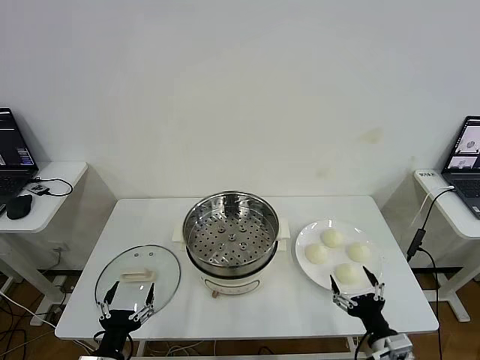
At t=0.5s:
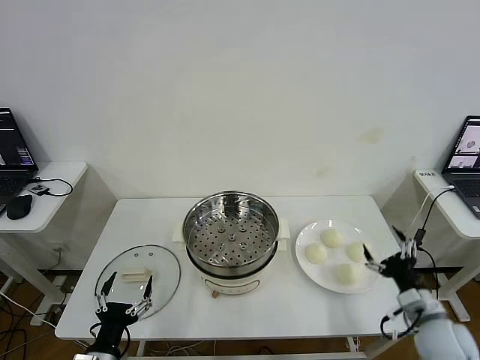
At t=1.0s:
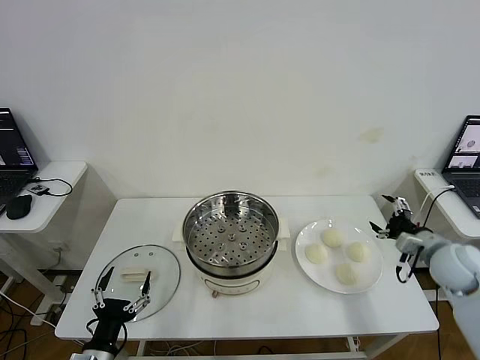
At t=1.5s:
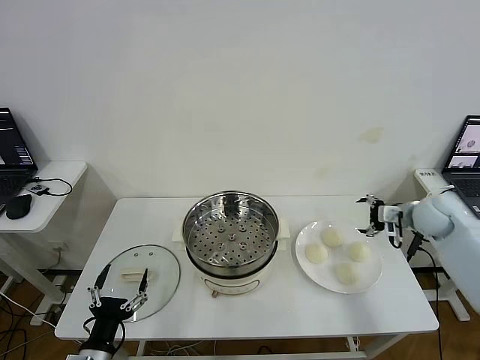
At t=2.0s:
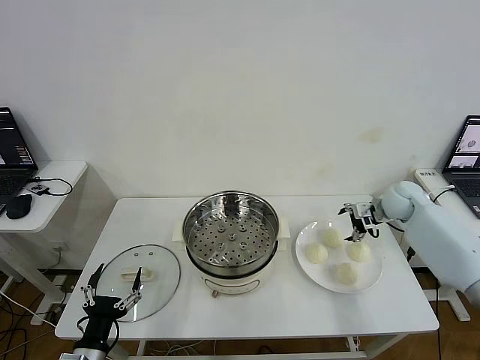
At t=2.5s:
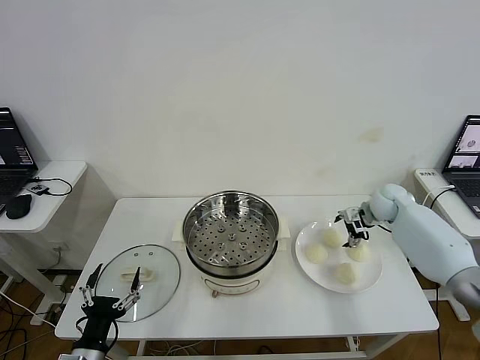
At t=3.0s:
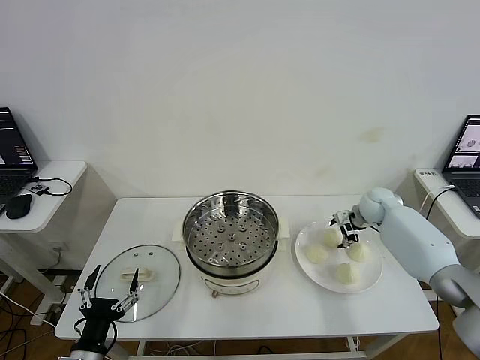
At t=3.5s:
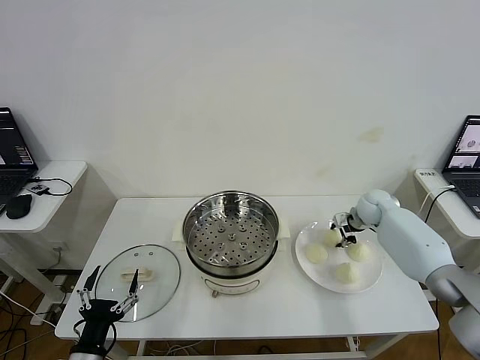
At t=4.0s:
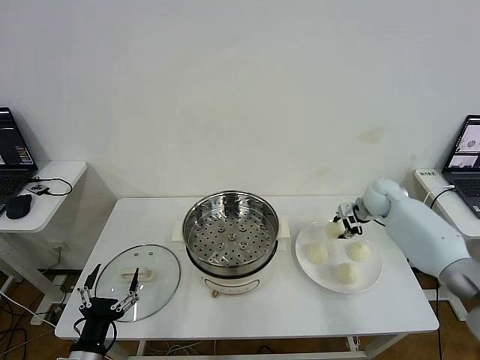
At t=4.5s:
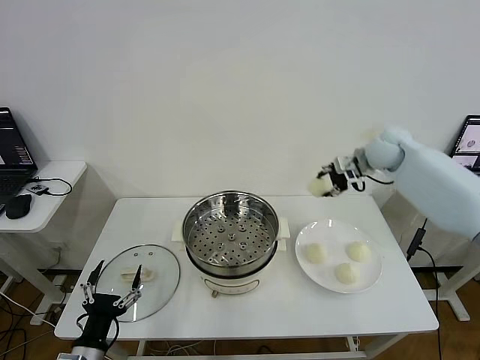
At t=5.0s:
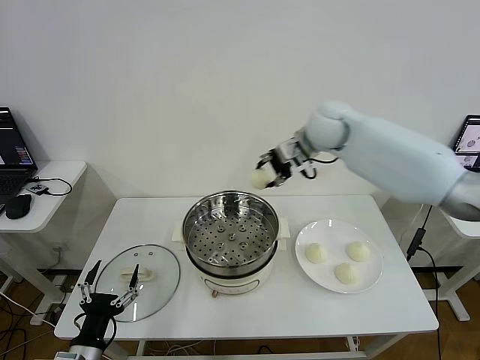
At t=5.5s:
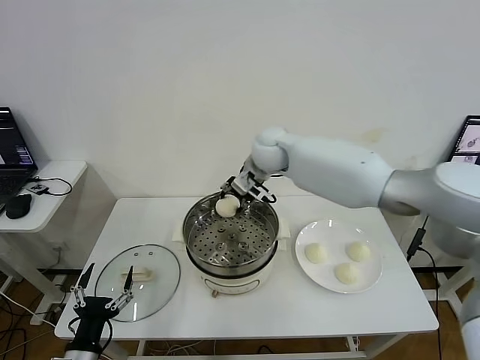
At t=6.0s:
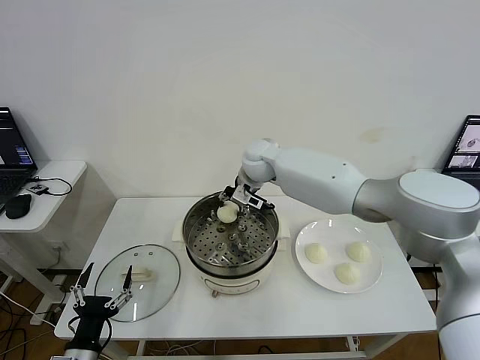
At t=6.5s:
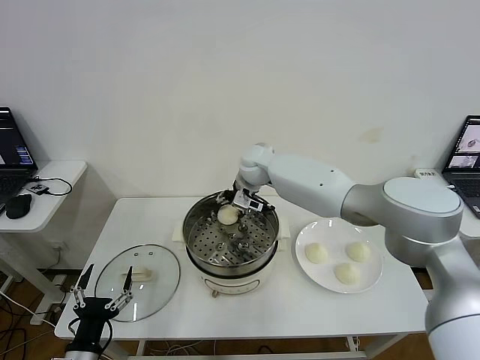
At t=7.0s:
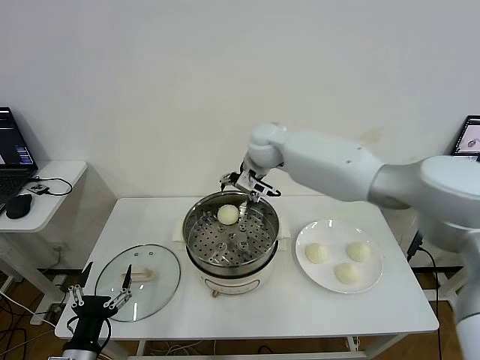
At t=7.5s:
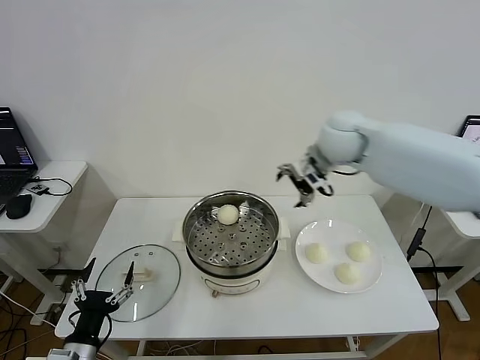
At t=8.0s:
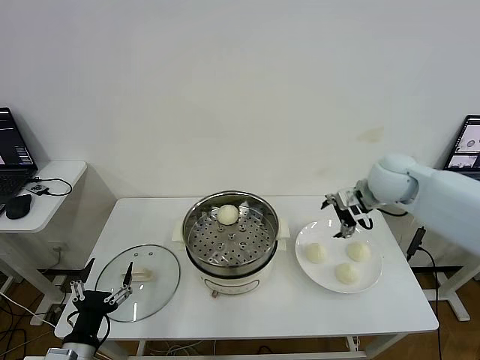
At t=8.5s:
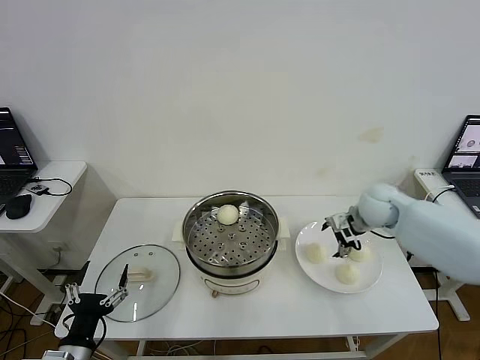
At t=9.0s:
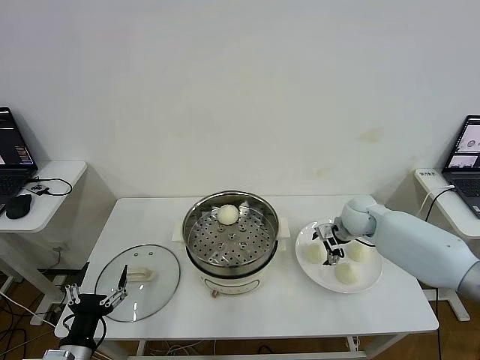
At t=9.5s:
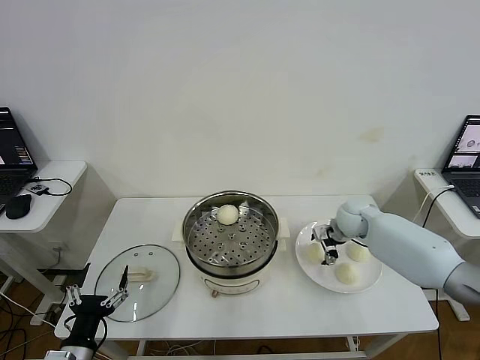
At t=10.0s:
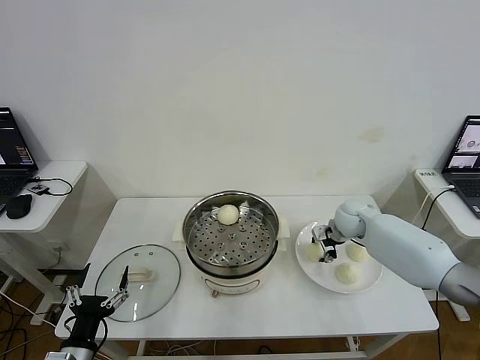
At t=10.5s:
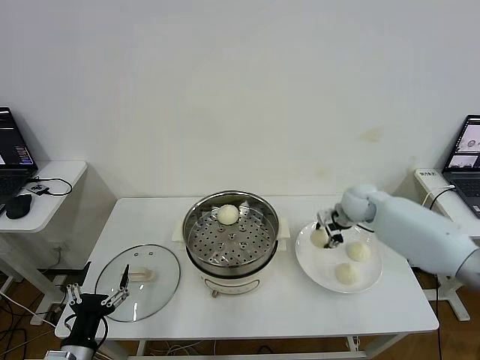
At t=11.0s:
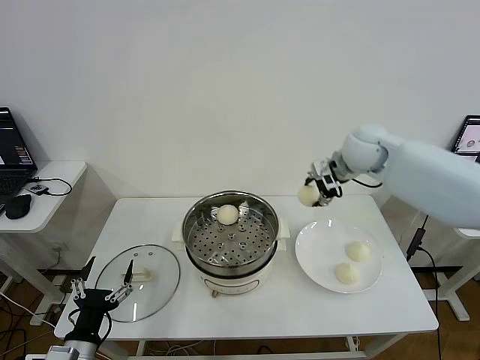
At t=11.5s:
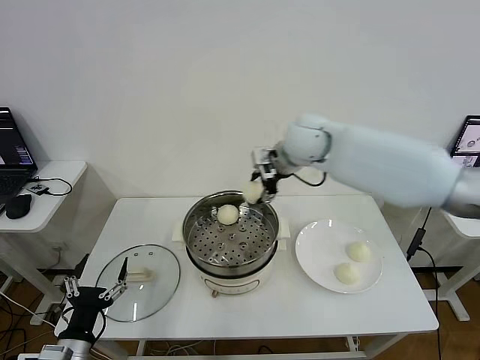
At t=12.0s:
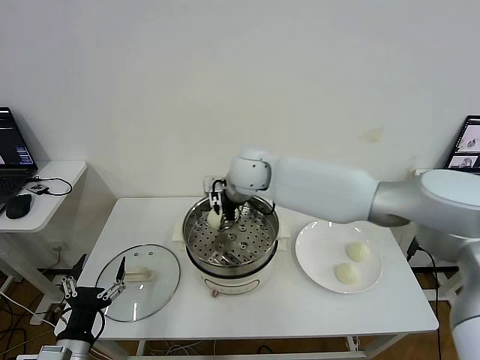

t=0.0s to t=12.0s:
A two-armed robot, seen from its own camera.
Step, t=0.0s to t=3.5s: Grasp the baozi in the plate with right gripper.
Step, t=4.0s to t=6.5s: Place the baozi on the steamer with right gripper.
Step, t=7.0s to t=10.0s: Grasp the baozi in the plate with right gripper.
t=2.0s to t=4.0s: The right gripper closes its fingers.
t=4.0s to t=6.0s: The right gripper is displaced to the left by roughly 35 cm.
t=6.0s to t=8.0s: The right gripper heads to the right, covering approximately 30 cm, and opens.
t=8.0s to t=10.0s: The right gripper shifts roughly 15 cm downward, and closes.
t=10.0s to t=12.0s: The right gripper shifts roughly 35 cm to the left and upward.

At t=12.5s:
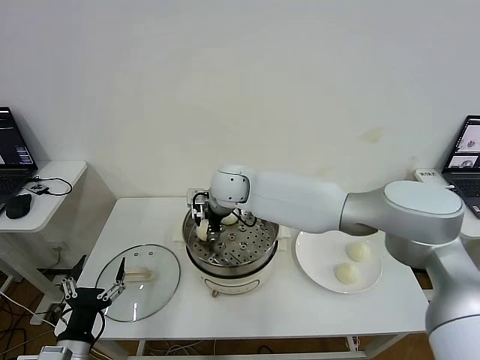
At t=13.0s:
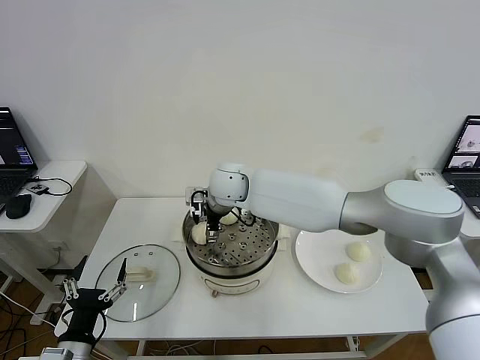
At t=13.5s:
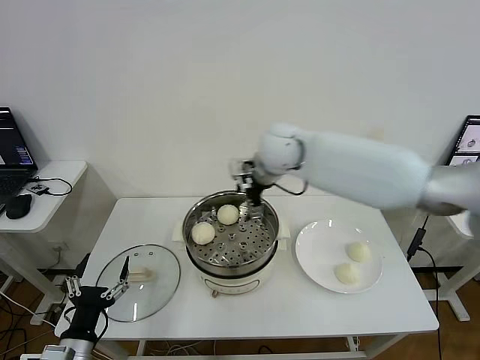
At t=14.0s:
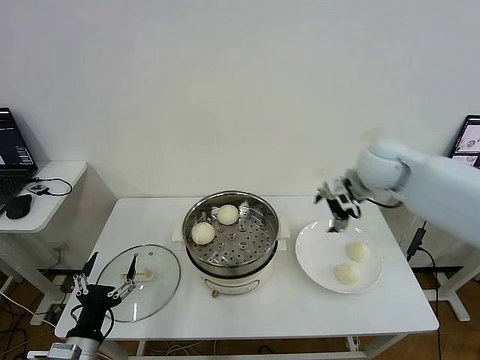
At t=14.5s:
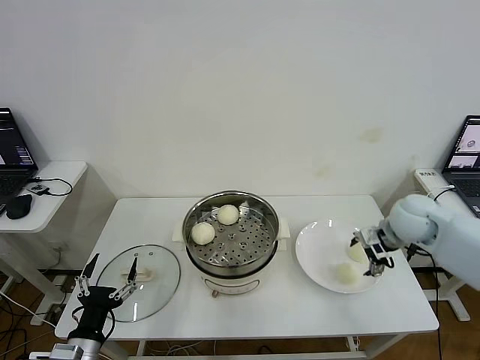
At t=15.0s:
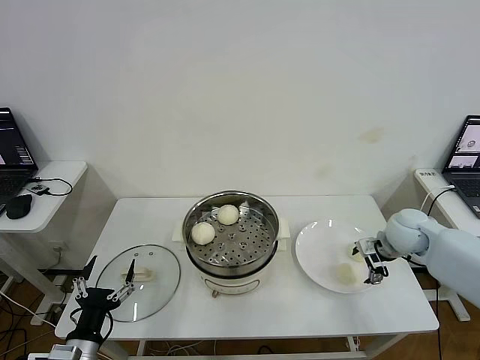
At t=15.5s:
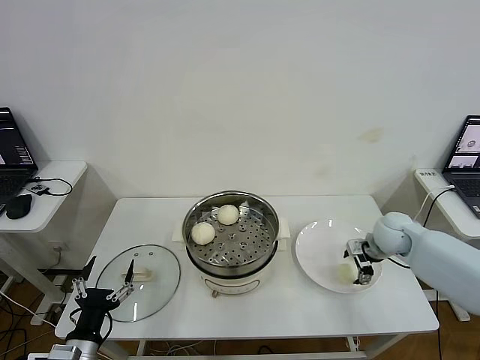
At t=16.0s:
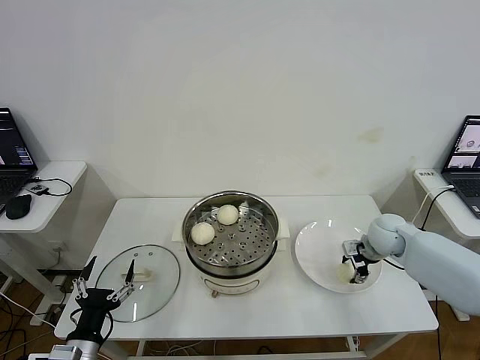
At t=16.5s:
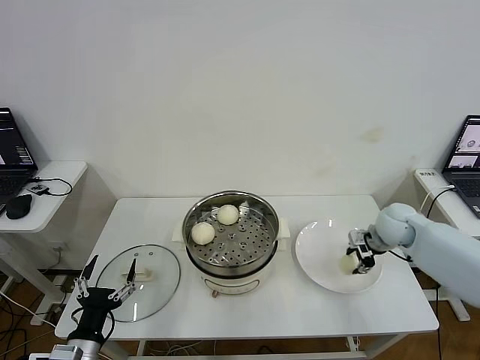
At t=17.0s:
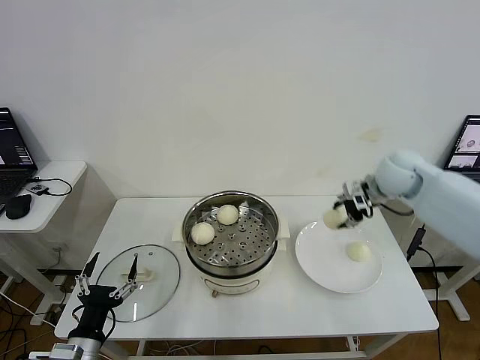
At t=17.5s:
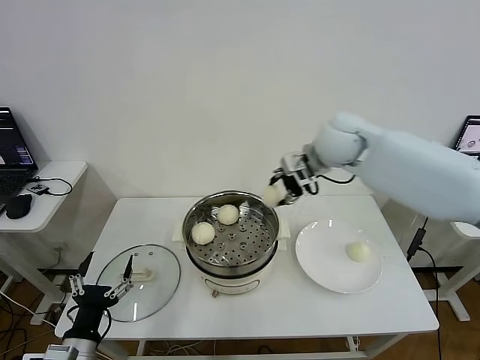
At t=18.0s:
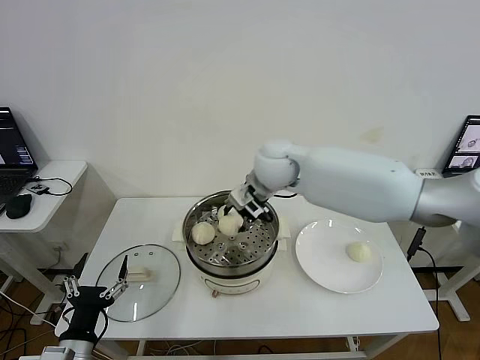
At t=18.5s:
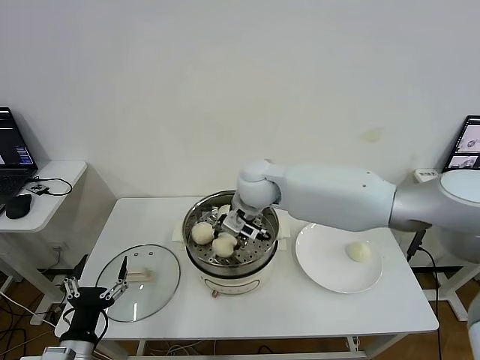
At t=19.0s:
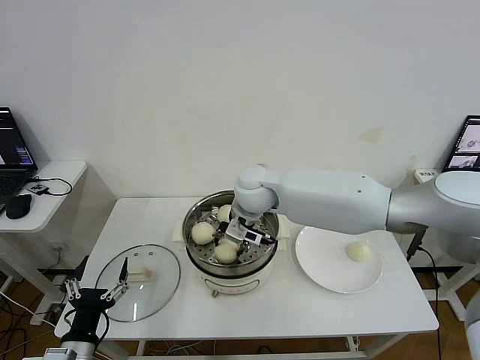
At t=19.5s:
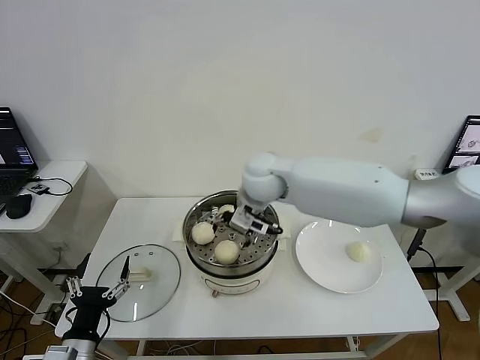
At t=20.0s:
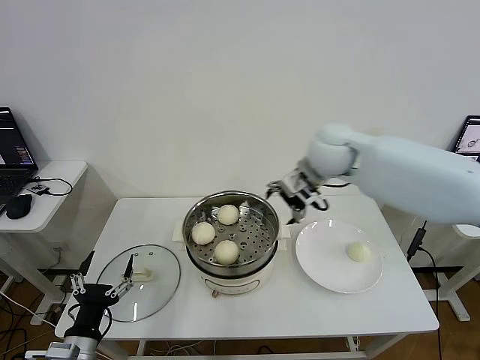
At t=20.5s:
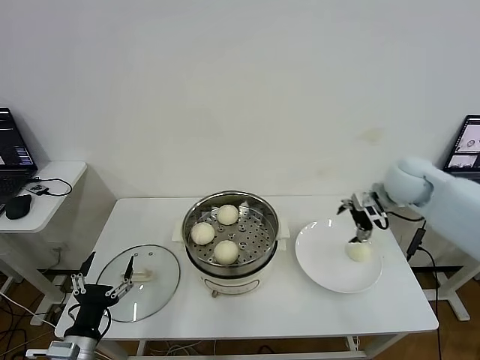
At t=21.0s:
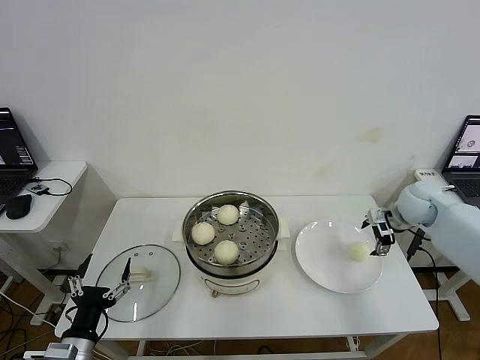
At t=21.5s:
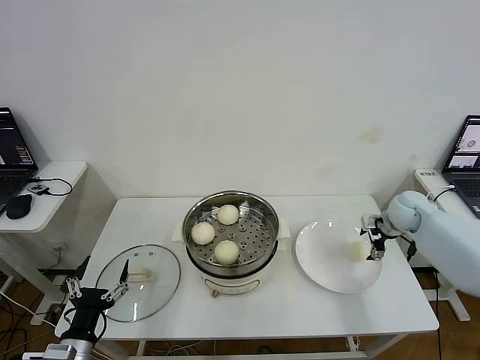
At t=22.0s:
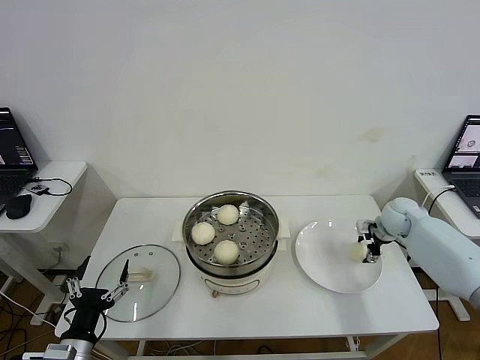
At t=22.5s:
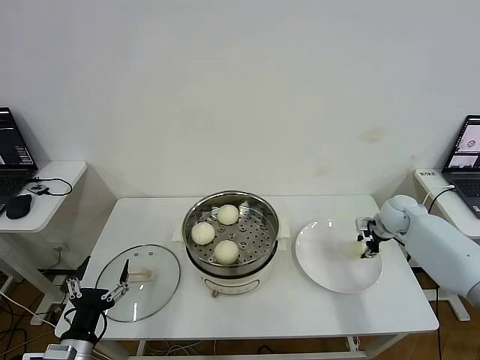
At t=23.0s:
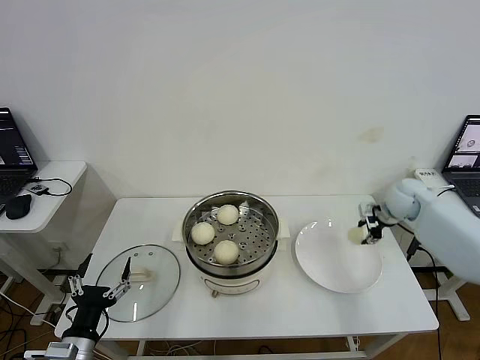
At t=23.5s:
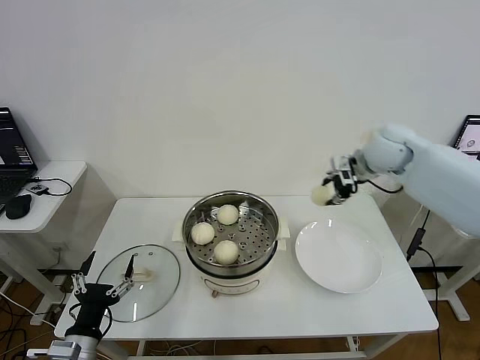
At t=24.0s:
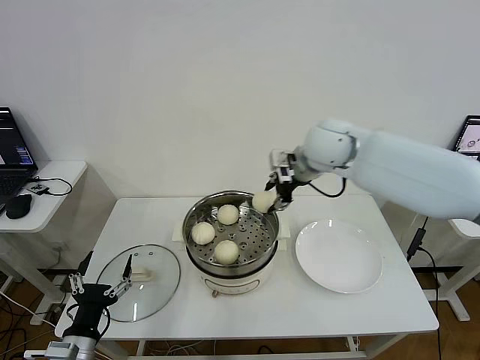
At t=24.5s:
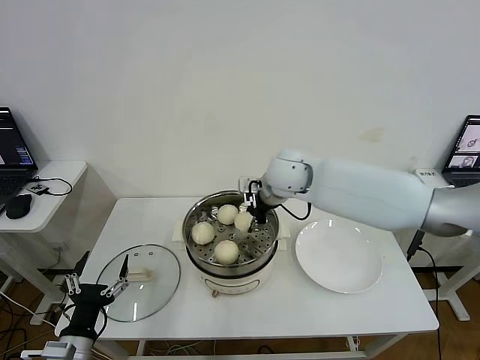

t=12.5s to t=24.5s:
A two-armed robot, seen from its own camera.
Step, t=13.5s to t=16.0s: Grasp the baozi in the plate with right gripper.
Step, t=16.5s to t=19.0s: Place the baozi on the steamer with right gripper.
Step, t=19.5s to t=22.5s: Grasp the baozi in the plate with right gripper.
t=12.5s to t=14.5s: The right gripper heads to the right, covering approximately 40 cm, and opens its fingers.
t=14.5s to t=16.5s: The right gripper closes its fingers.
t=16.5s to t=18.5s: The right gripper travels to the left by approximately 35 cm.
t=18.5s to t=20.5s: The right gripper shifts approximately 30 cm to the right, and opens.
t=20.5s to t=22.5s: The right gripper heads downward, covering some 15 cm, and closes up.
t=22.5s to t=24.5s: The right gripper goes approximately 35 cm to the left and upward.

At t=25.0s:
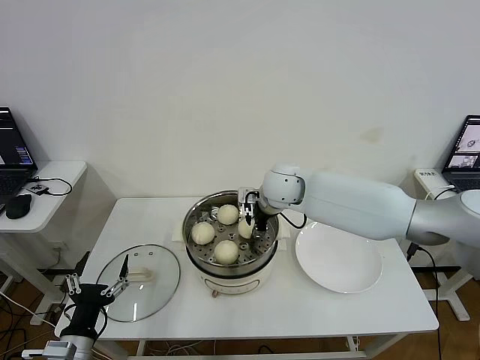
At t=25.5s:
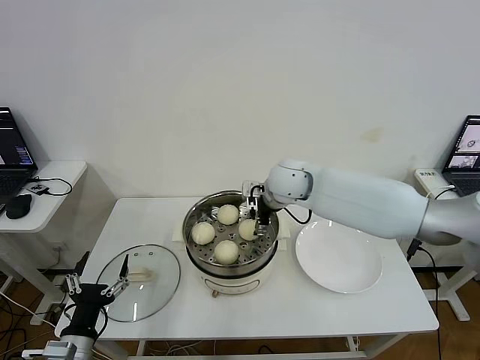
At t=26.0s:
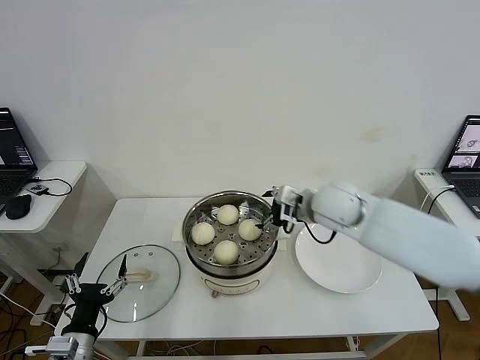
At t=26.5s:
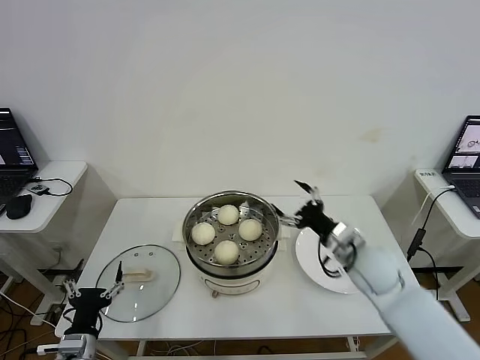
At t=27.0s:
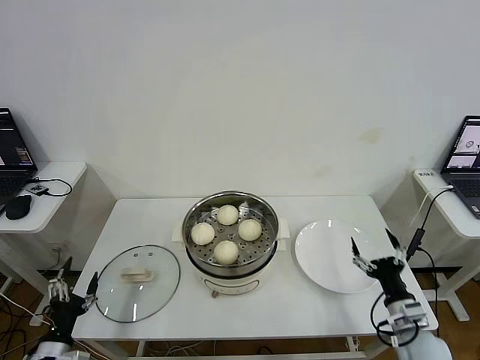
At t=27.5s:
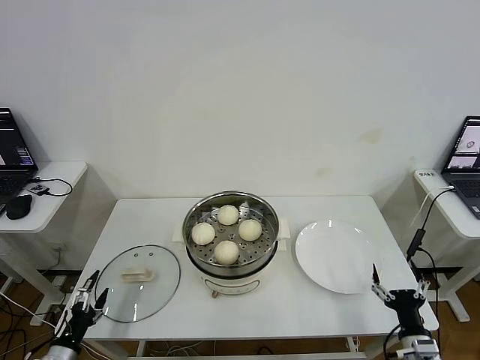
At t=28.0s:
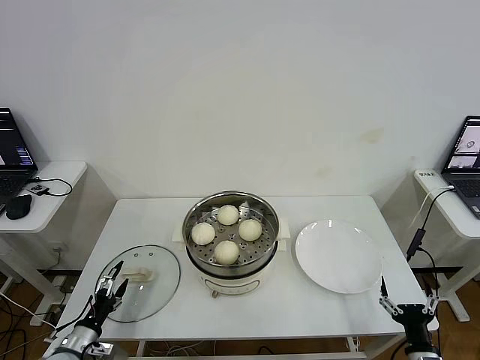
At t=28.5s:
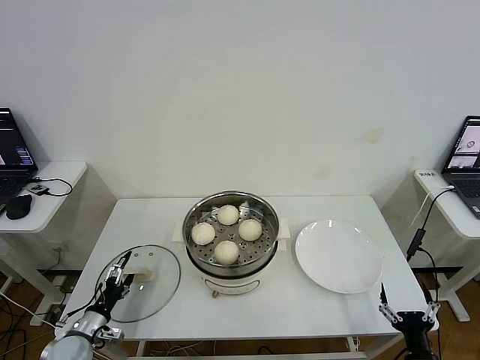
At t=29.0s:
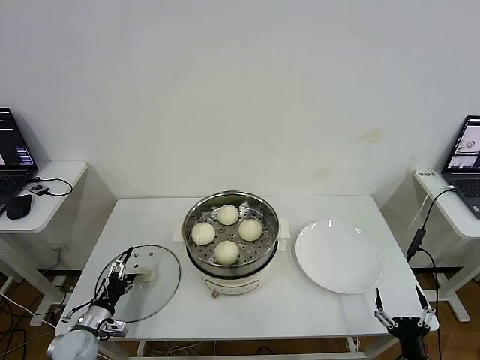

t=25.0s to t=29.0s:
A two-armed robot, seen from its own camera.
t=25.0s to t=27.0s: The right gripper moves backward, to the right and downward, approximately 40 cm, and opens its fingers. The left gripper is displaced to the left by approximately 5 cm.
t=27.0s to t=29.0s: The left gripper shifts some 10 cm forward and downward. Meanwhile the right gripper shifts roughly 15 cm backward and downward.
